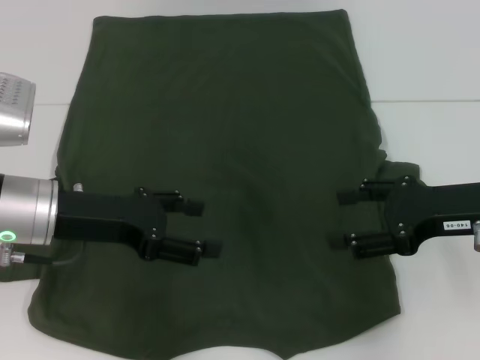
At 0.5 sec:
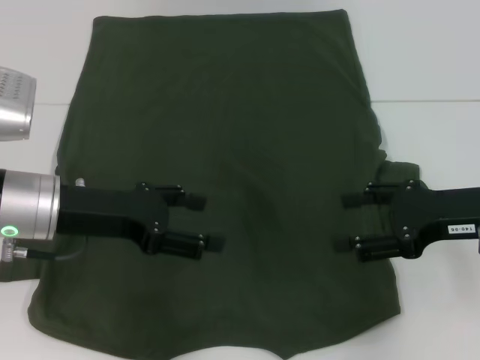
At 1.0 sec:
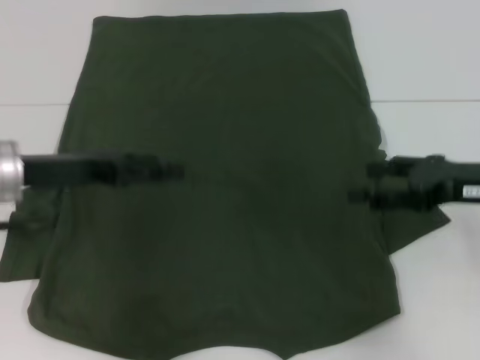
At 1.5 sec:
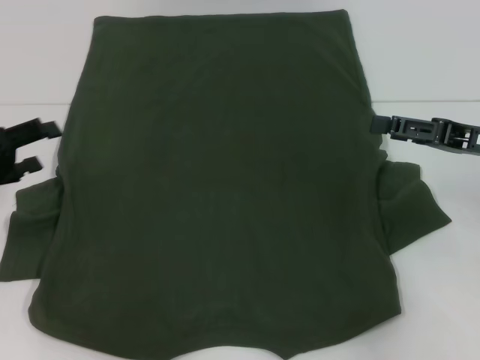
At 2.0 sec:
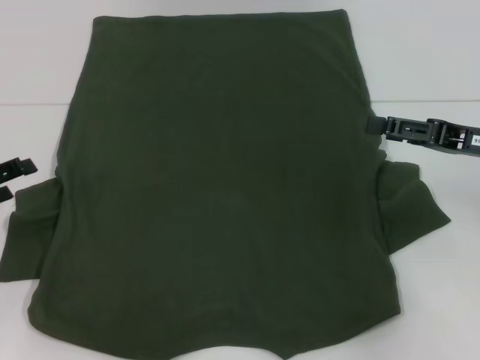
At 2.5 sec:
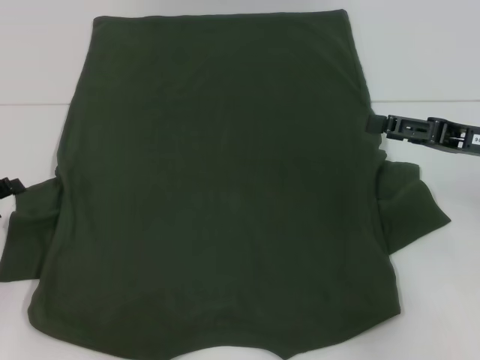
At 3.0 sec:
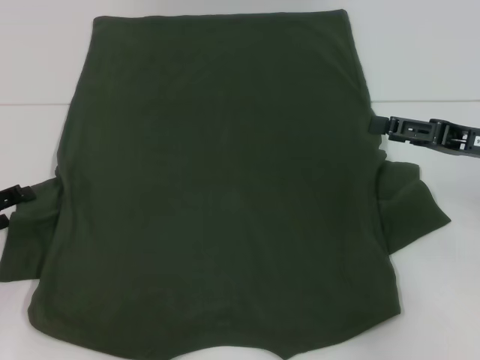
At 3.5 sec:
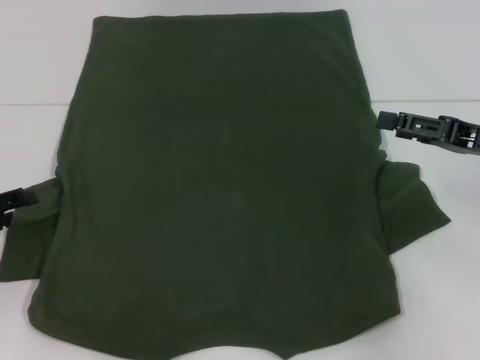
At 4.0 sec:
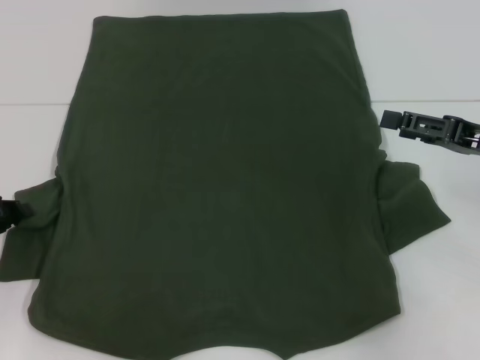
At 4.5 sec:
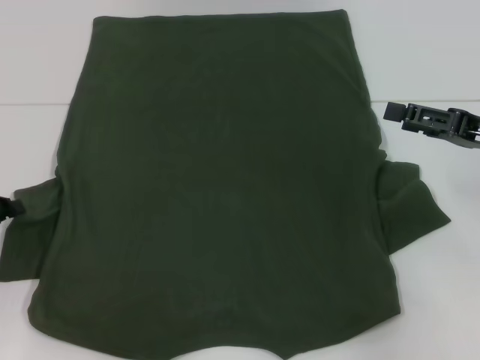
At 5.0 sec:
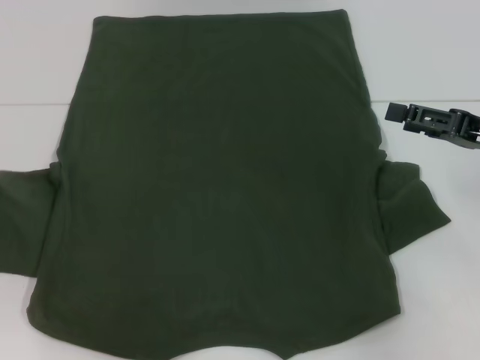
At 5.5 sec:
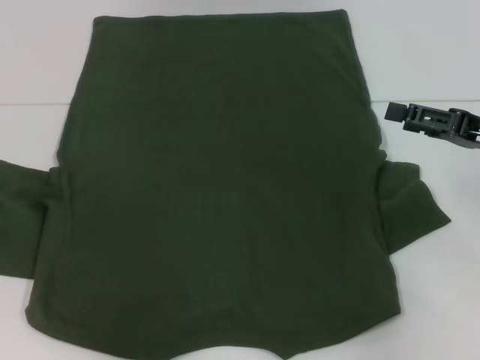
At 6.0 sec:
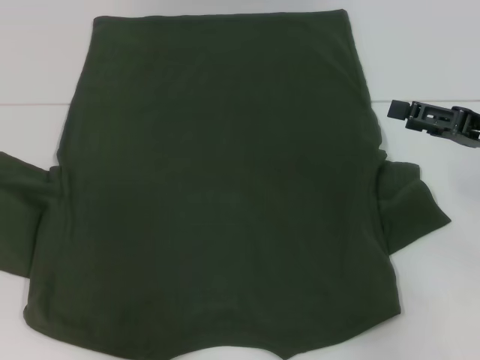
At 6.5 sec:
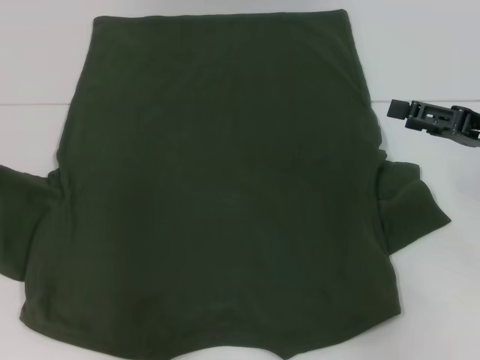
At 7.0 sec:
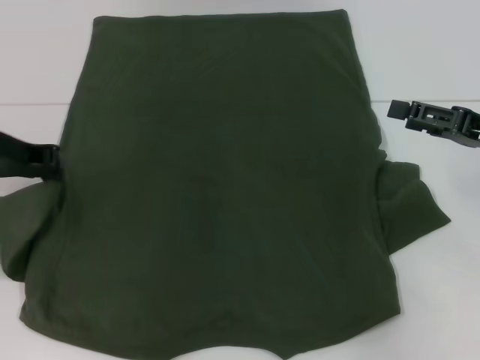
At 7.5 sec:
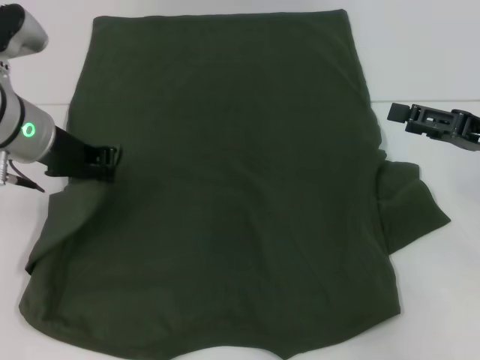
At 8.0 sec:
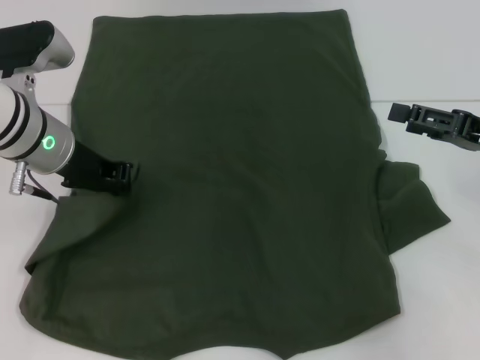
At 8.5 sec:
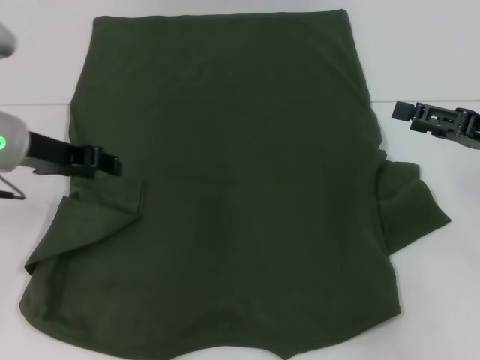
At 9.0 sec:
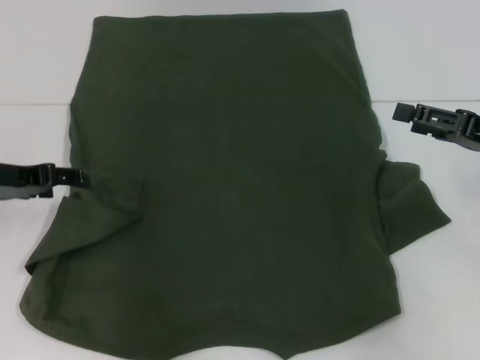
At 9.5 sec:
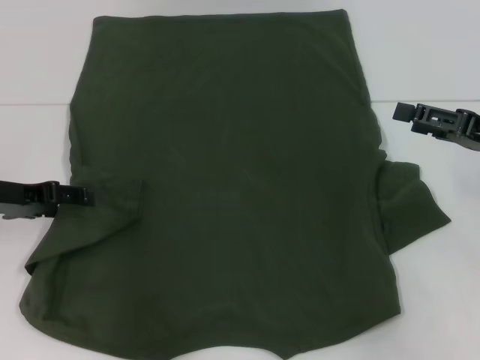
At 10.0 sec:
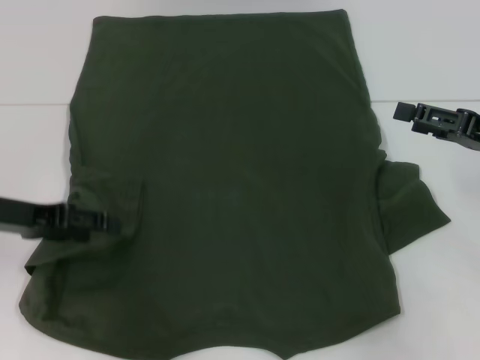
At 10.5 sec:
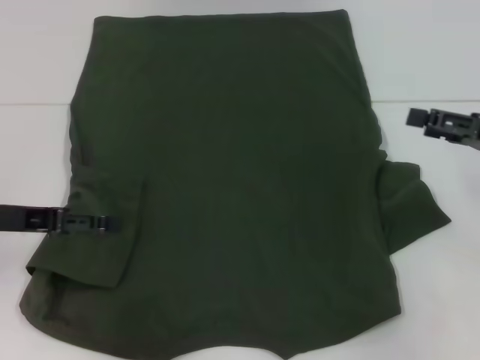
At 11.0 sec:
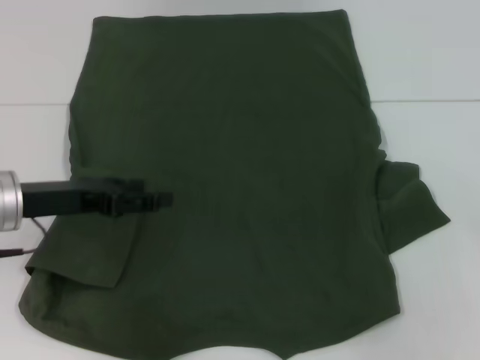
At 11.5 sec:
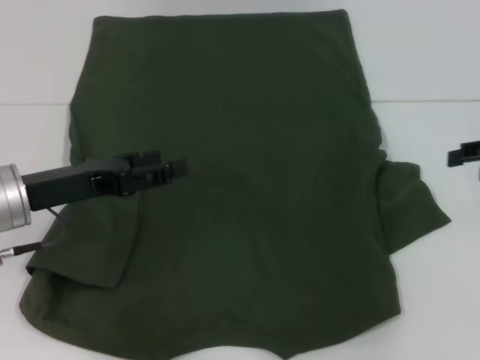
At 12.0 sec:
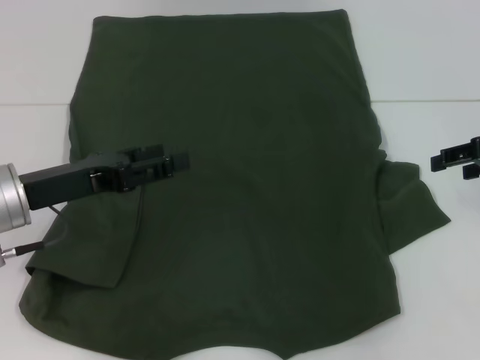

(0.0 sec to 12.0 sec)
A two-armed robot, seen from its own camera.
Step, 0.0 sec - 8.5 sec: Fold the bottom left sleeve with your left hand.
0.0 sec - 2.0 sec: The right gripper changes place by approximately 5 cm, while the left gripper moves to the left, roughly 15 cm.
2.0 sec - 4.0 sec: The left gripper closes its fingers.
4.0 sec - 6.0 sec: The left gripper moves upward, roughly 5 cm.
6.0 sec - 8.0 sec: The left gripper is displaced to the right by some 20 cm.
8.0 sec - 10.0 sec: The left gripper goes approximately 10 cm to the left and backward, and opens.
10.0 sec - 12.0 sec: The right gripper reaches about 10 cm to the right, then returns, while the left gripper moves to the right, about 5 cm.

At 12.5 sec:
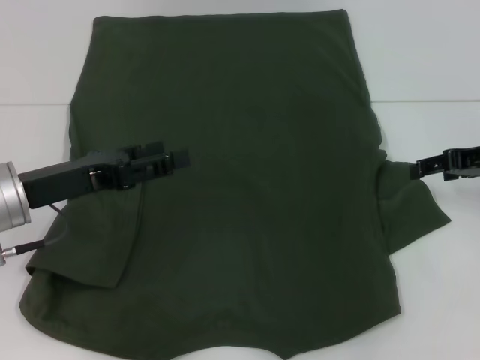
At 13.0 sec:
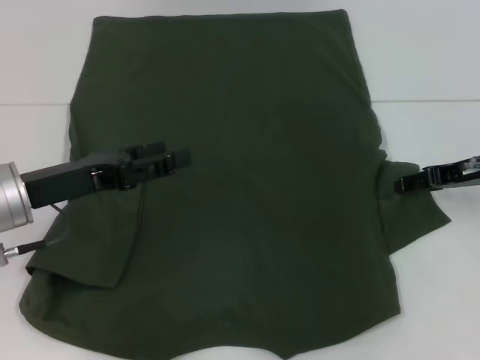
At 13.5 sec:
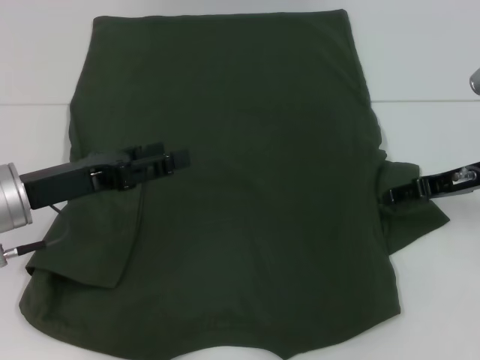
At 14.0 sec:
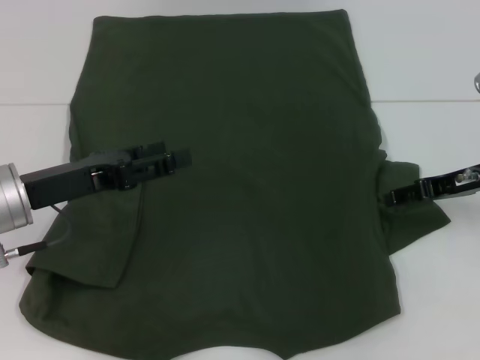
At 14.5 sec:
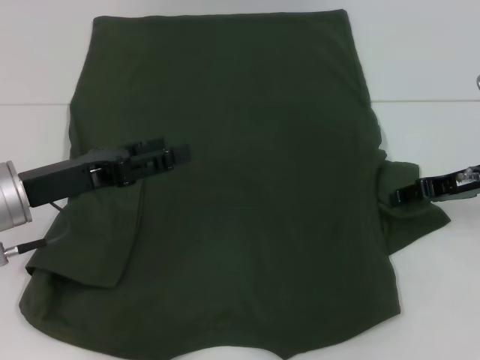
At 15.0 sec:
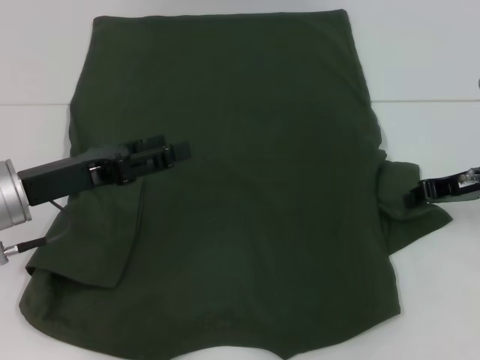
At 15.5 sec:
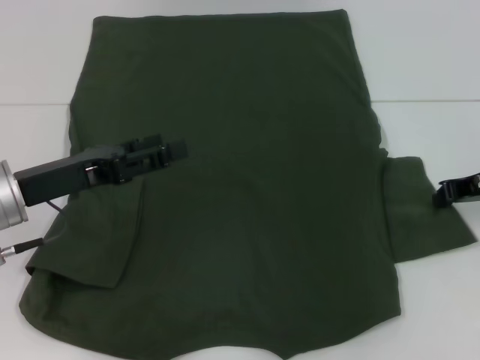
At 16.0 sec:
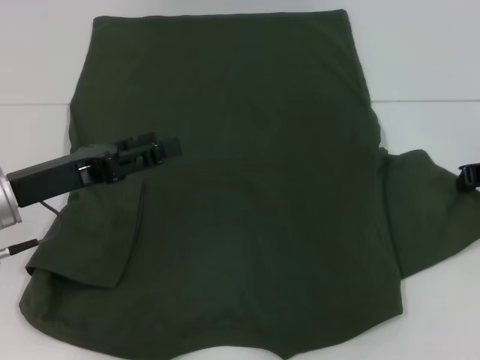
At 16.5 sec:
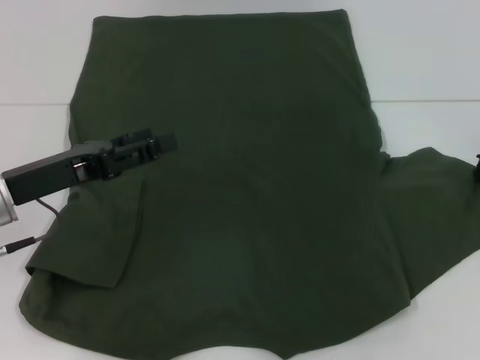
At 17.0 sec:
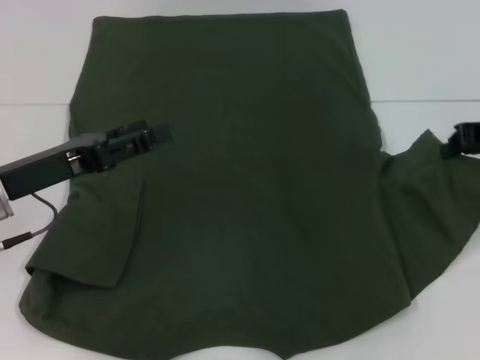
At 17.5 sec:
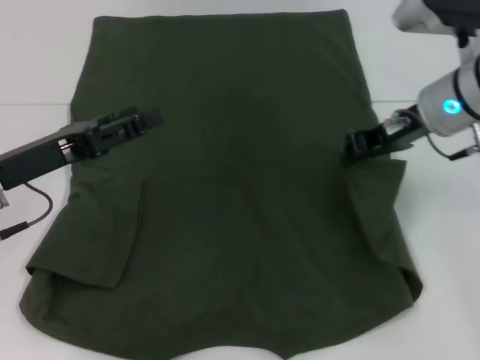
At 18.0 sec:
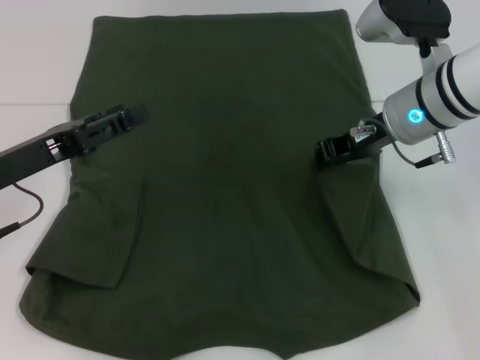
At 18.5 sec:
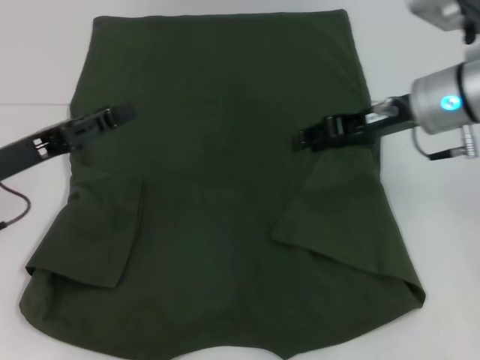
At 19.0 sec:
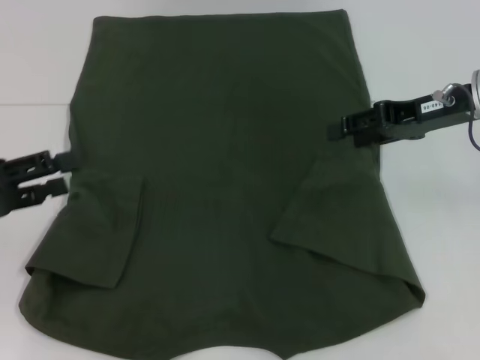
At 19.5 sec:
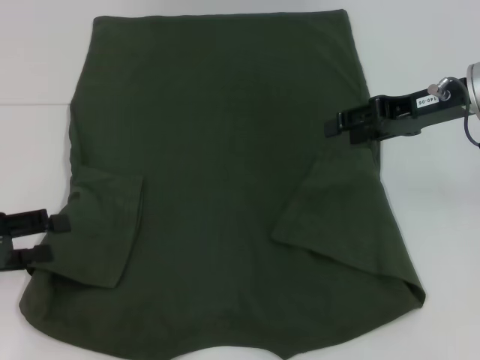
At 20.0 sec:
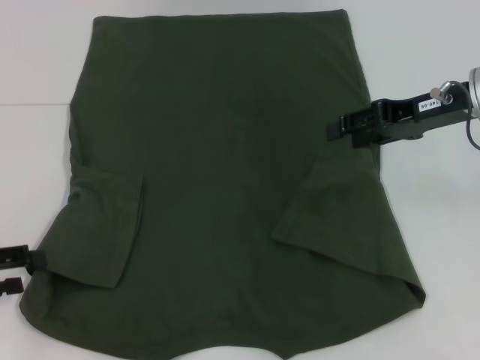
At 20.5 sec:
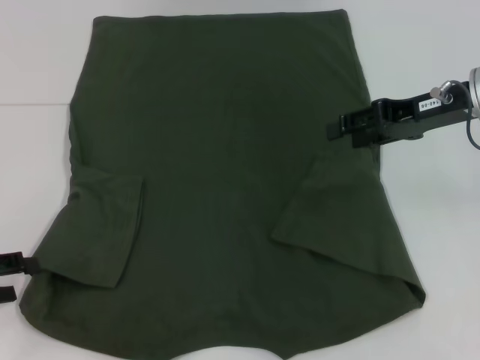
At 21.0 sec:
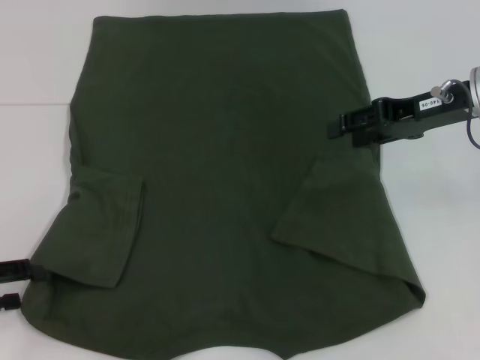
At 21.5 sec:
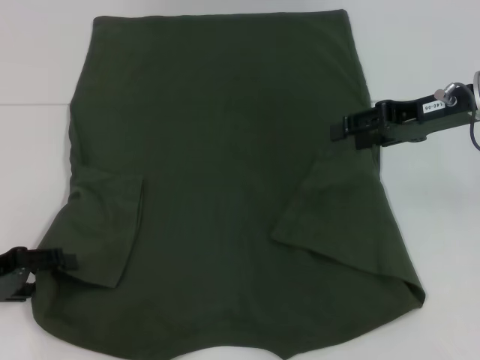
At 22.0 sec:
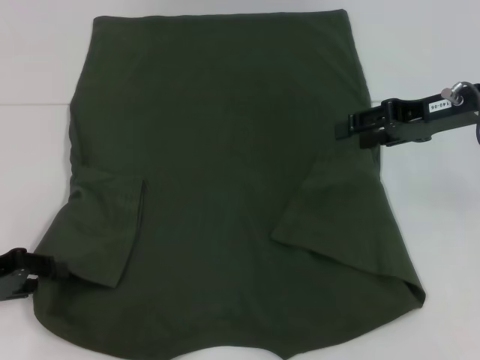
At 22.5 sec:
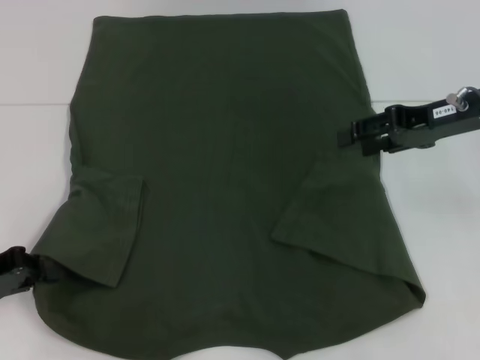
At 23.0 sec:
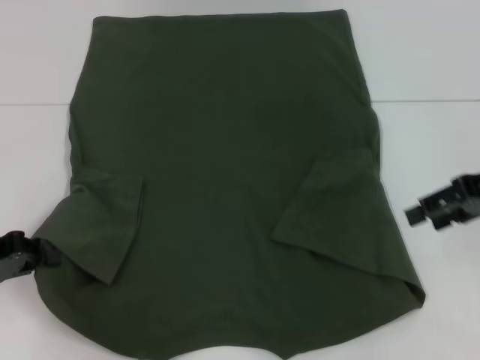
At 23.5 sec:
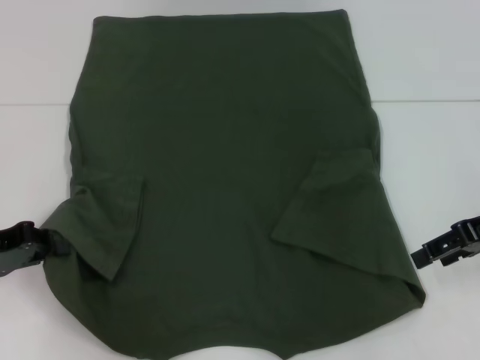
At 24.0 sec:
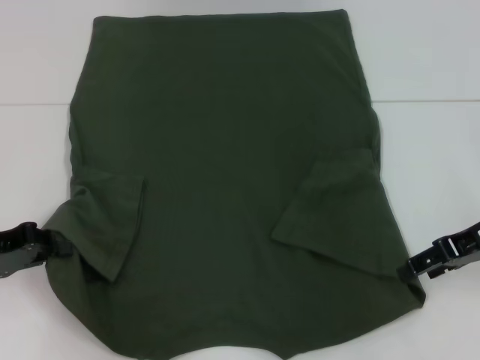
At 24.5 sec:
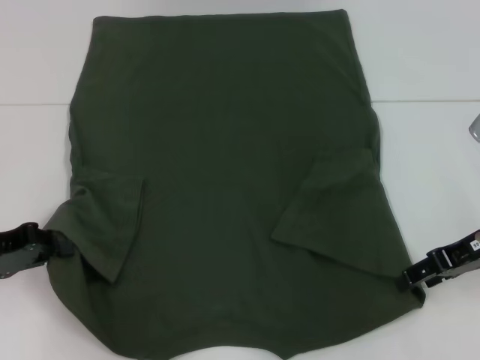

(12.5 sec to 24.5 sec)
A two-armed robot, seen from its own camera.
Step, 12.5 sec - 18.5 sec: Fold the bottom right sleeve with your right hand.
Step, 19.0 sec - 23.0 sec: Grab the bottom left corner with your left hand.
12.5 sec - 14.5 sec: There are only small adjustments of the grippers.
14.5 sec - 16.5 sec: The right gripper closes its fingers.
16.5 sec - 18.5 sec: The right gripper goes about 15 cm to the left.
18.5 sec - 20.5 sec: The left gripper moves to the left and backward, some 10 cm, while the right gripper opens its fingers.
20.5 sec - 22.5 sec: The left gripper closes its fingers.
22.5 sec - 24.5 sec: The right gripper moves downward and backward, some 10 cm.

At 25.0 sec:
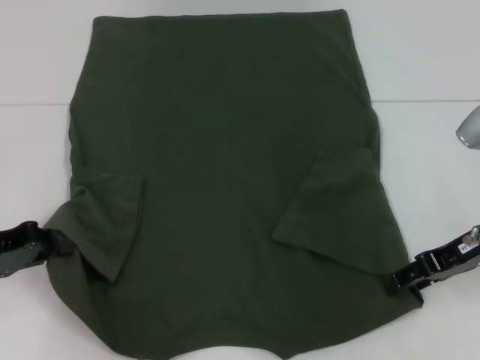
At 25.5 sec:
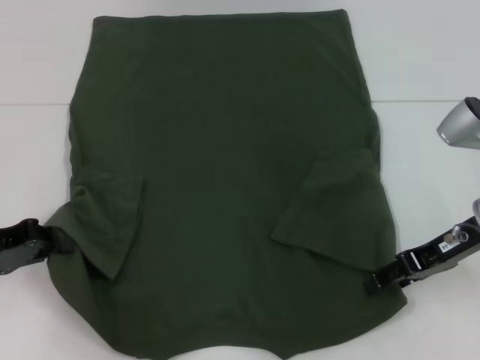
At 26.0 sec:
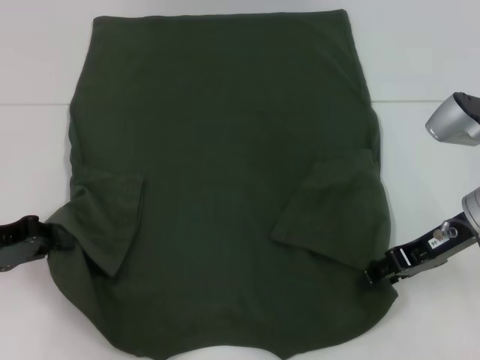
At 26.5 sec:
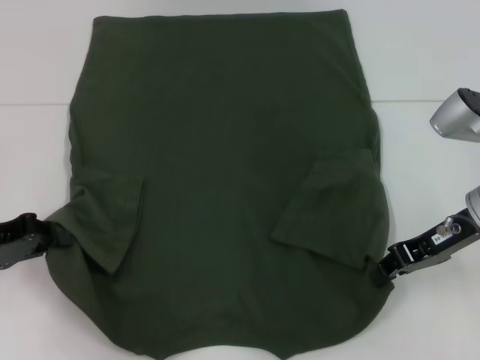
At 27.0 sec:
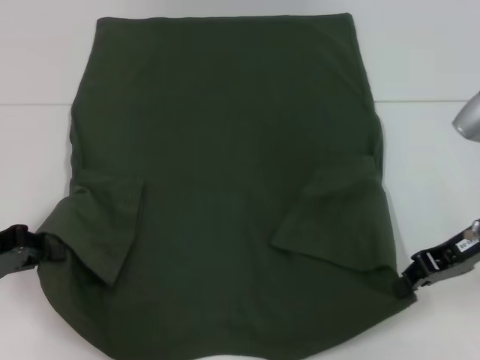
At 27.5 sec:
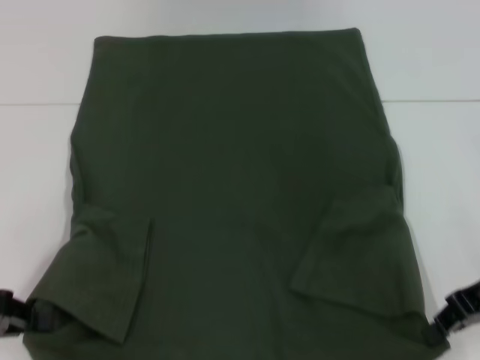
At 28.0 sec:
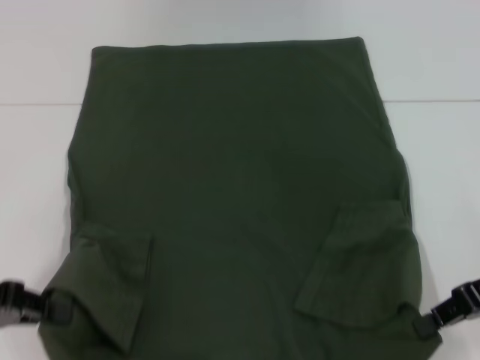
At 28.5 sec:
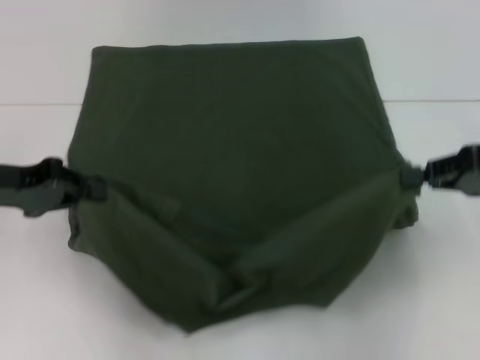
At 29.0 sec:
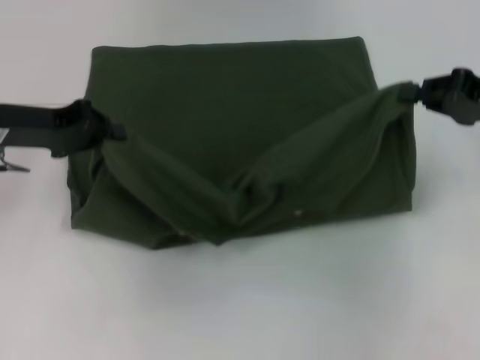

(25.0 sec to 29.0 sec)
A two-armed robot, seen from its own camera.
25.0 sec - 27.0 sec: The right gripper closes its fingers.
27.0 sec - 29.0 sec: The left gripper heads forward, to the right and upward, covering roughly 15 cm, while the right gripper moves roughly 5 cm.
